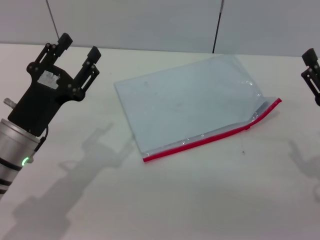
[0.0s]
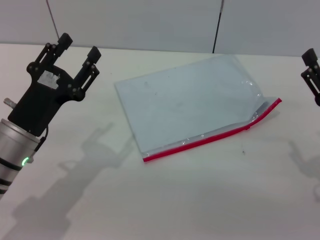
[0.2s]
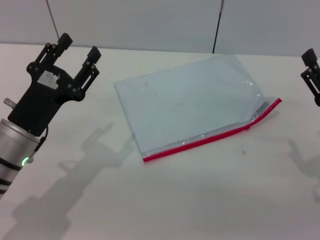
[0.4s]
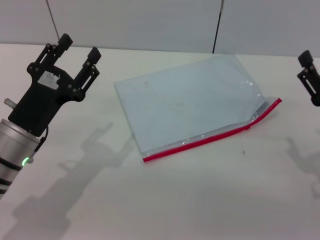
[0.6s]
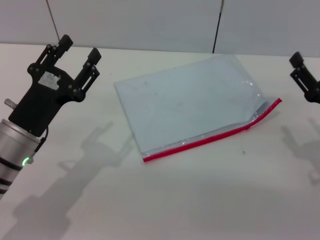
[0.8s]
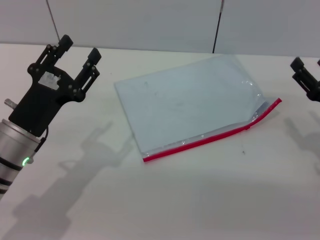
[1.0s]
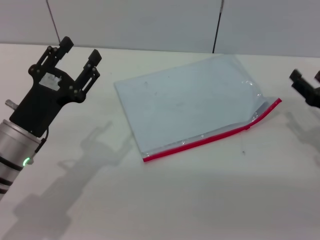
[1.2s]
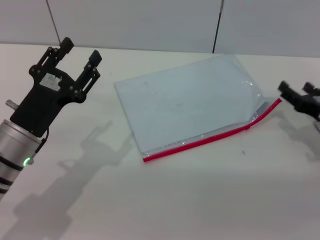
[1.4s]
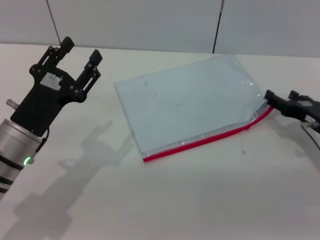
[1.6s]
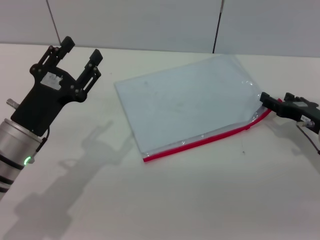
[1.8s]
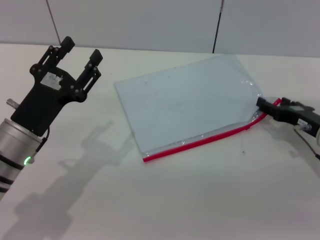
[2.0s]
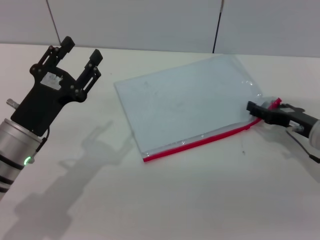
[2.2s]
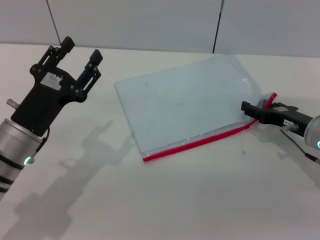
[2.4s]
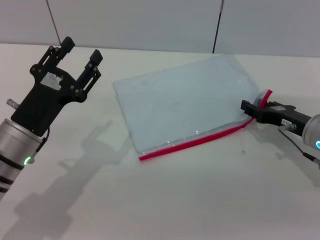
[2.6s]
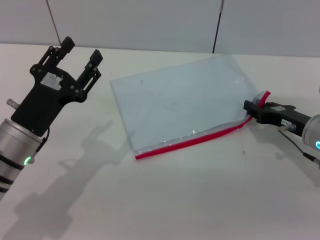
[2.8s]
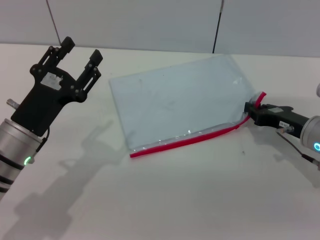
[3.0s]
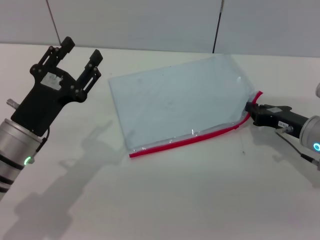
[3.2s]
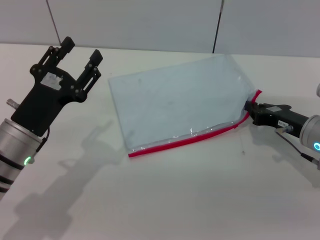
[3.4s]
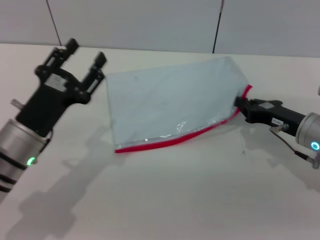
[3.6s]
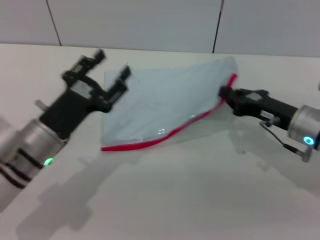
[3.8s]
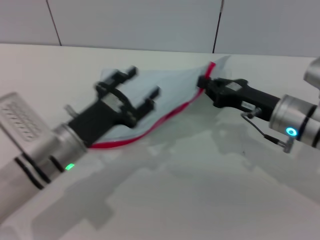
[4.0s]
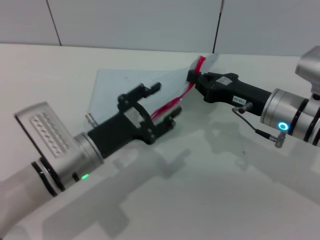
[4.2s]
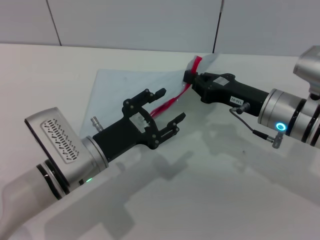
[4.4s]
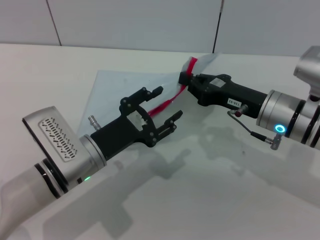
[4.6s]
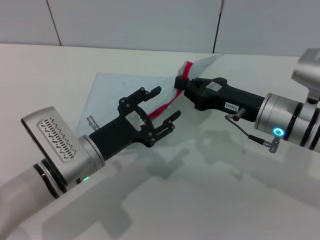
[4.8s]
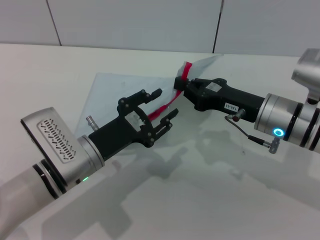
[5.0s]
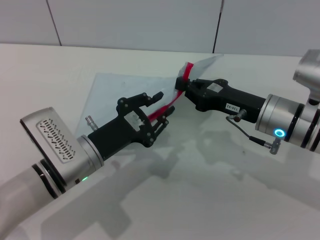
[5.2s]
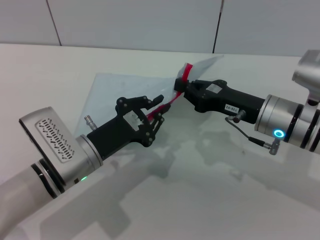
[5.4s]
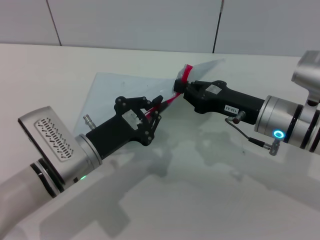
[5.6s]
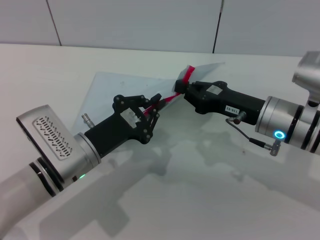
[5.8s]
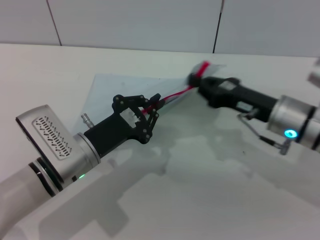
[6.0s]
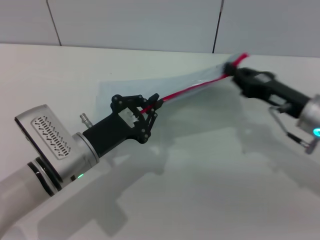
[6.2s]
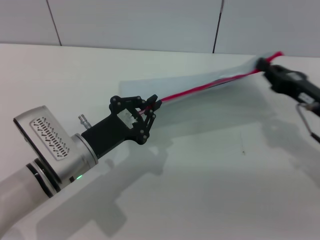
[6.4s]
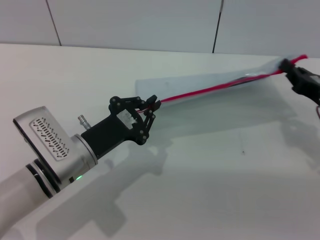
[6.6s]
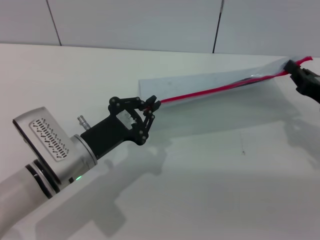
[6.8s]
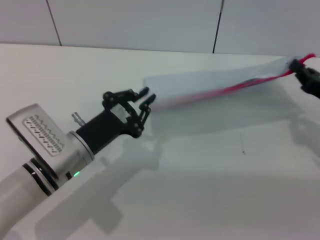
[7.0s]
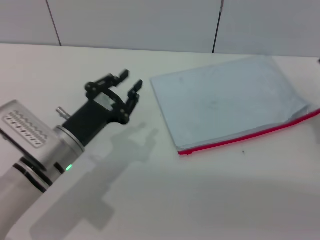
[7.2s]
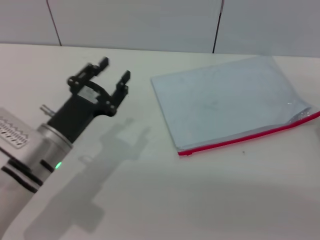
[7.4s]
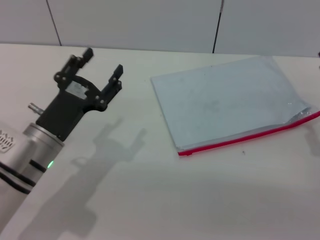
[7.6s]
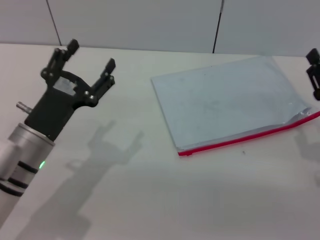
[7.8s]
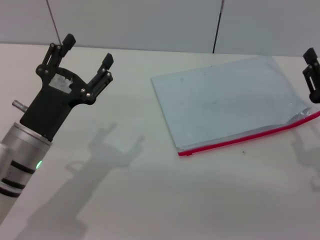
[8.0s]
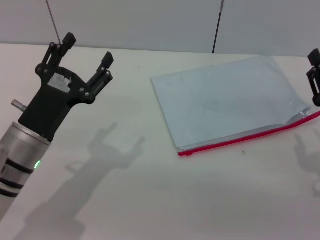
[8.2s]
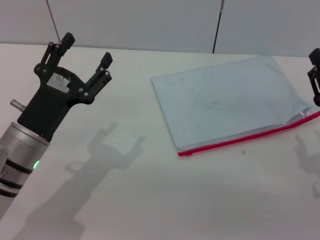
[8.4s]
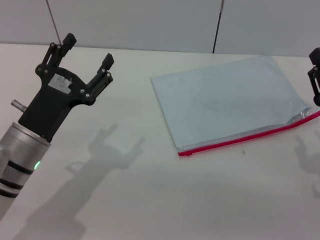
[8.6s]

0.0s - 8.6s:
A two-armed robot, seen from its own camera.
Step, 0.0s - 4.0s: Pick up the transparent plastic bag with the right gripper.
Step, 4.2s - 6.8s: Pulling up the zipper on the transparent plastic bag with the left gripper to close it.
Step, 7.2s - 7.6s: Place the transparent plastic bag.
0.0s - 1.4s: The right gripper travels forward by roughly 10 cm.
1.4s - 2.8s: The right gripper closes its fingers.
2.8s - 4.4s: The right gripper heads to the left, covering approximately 10 cm, and closes up; the left gripper moves to the right, approximately 5 cm.
4.4s - 5.8s: The left gripper closes.
5.8s - 7.2s: The right gripper travels to the right by some 15 cm.
7.2s - 8.6s: The right gripper heads to the left and backward, covering approximately 5 cm, and opens up; the left gripper opens.

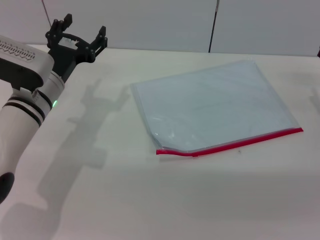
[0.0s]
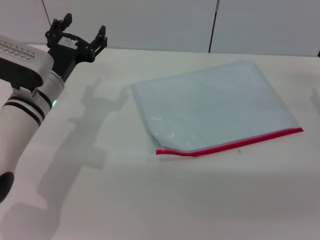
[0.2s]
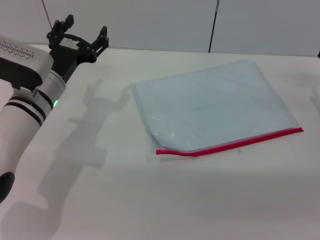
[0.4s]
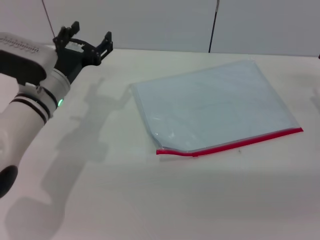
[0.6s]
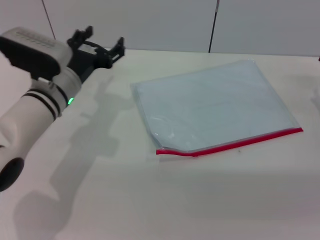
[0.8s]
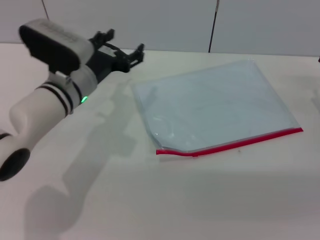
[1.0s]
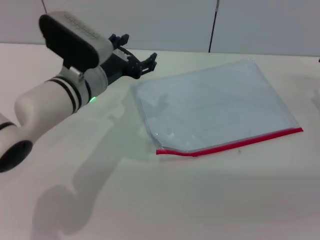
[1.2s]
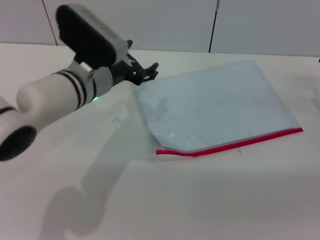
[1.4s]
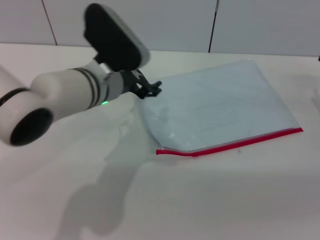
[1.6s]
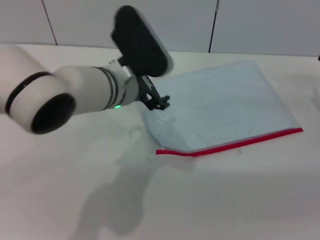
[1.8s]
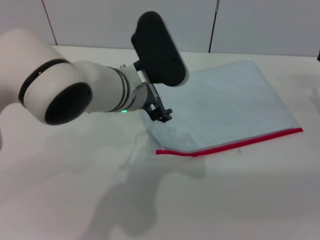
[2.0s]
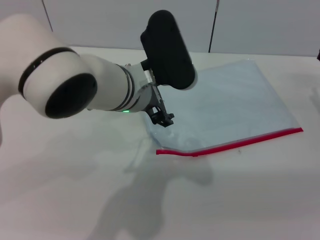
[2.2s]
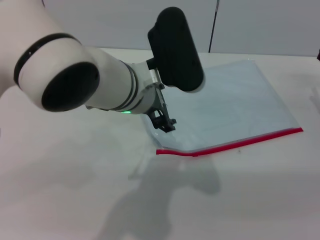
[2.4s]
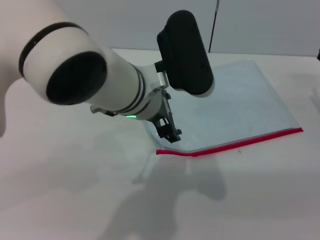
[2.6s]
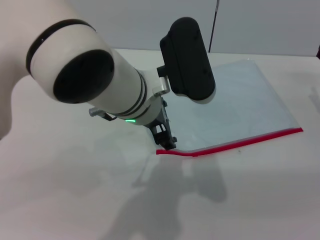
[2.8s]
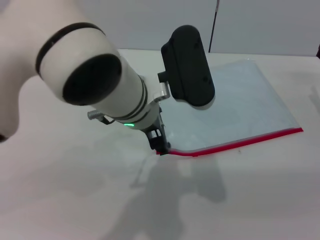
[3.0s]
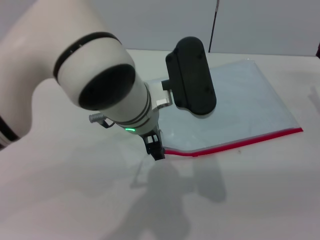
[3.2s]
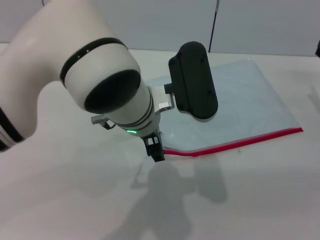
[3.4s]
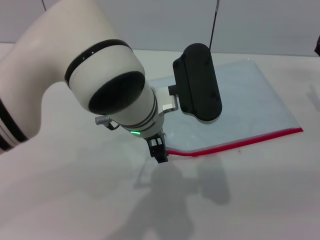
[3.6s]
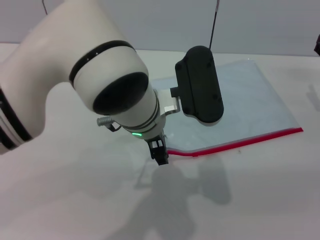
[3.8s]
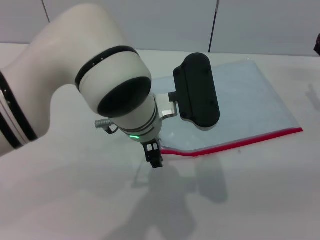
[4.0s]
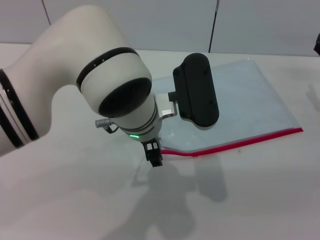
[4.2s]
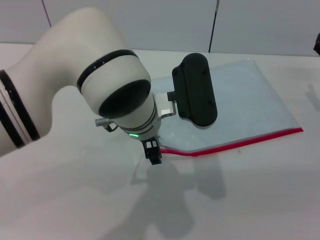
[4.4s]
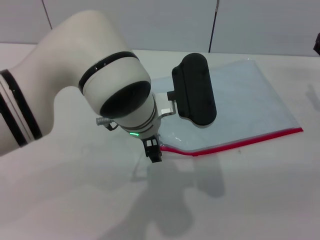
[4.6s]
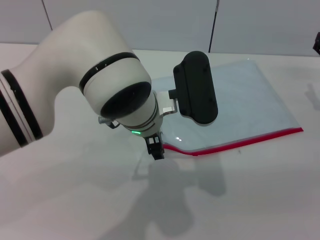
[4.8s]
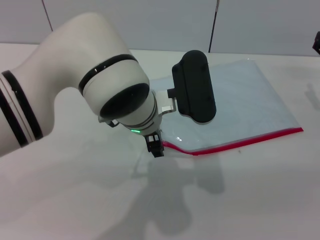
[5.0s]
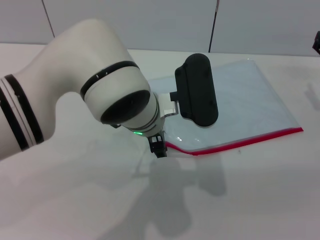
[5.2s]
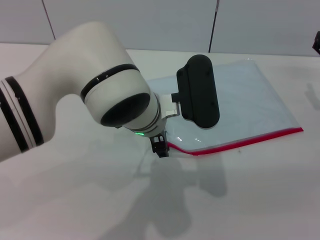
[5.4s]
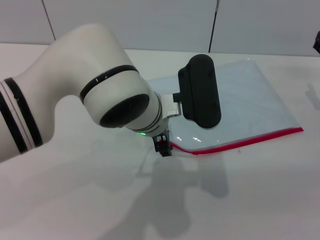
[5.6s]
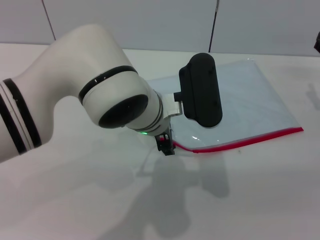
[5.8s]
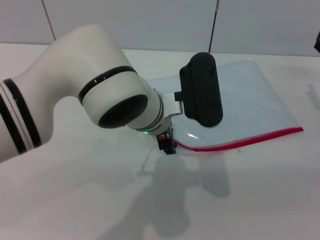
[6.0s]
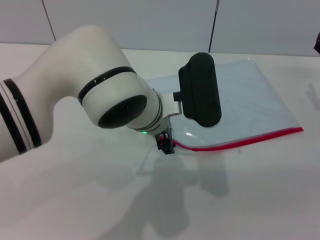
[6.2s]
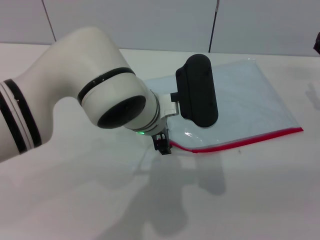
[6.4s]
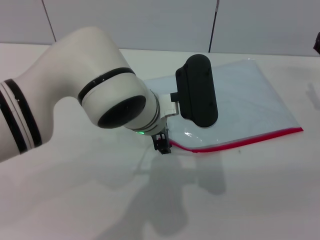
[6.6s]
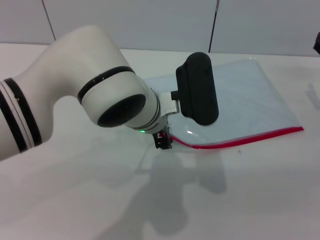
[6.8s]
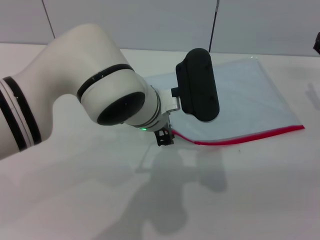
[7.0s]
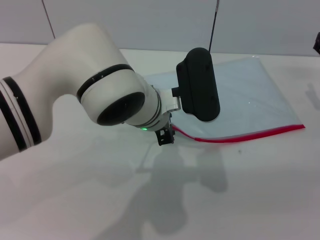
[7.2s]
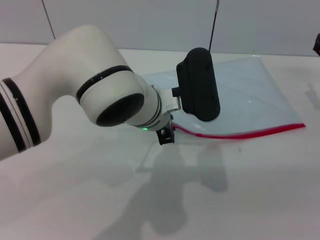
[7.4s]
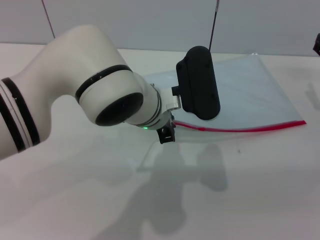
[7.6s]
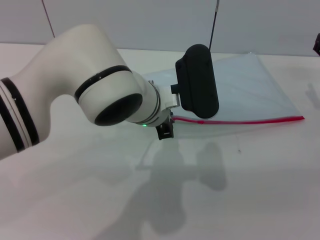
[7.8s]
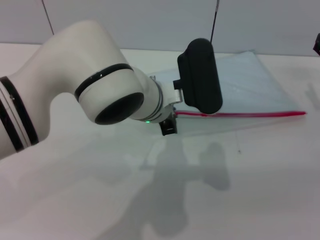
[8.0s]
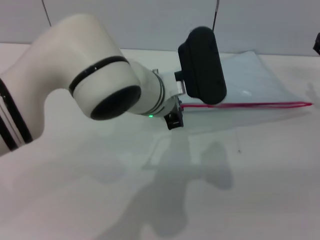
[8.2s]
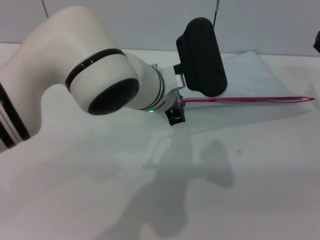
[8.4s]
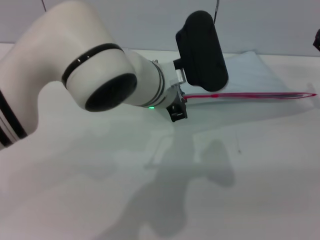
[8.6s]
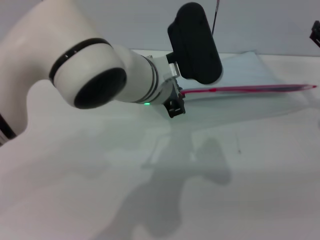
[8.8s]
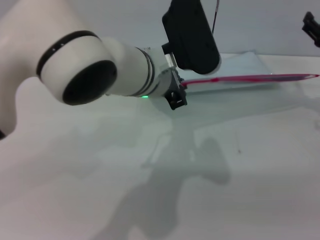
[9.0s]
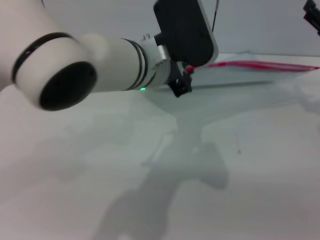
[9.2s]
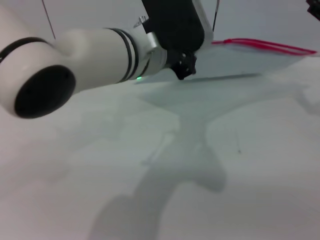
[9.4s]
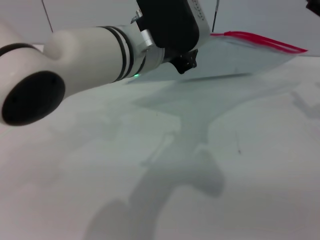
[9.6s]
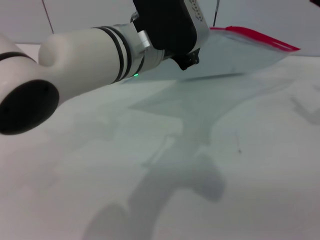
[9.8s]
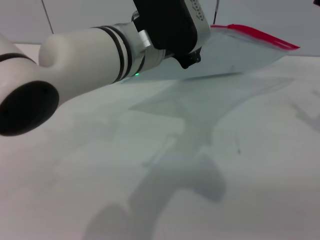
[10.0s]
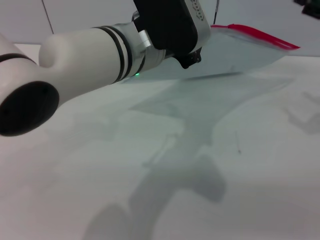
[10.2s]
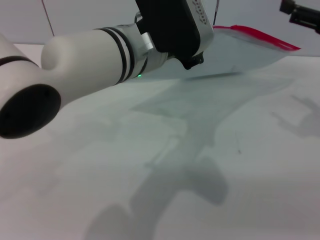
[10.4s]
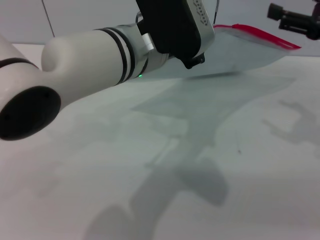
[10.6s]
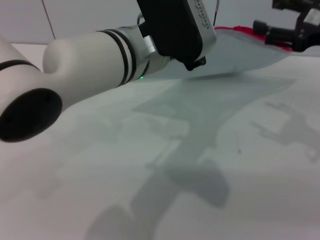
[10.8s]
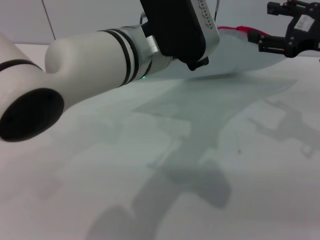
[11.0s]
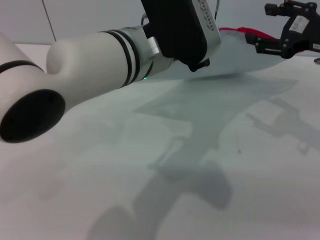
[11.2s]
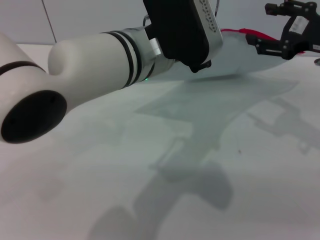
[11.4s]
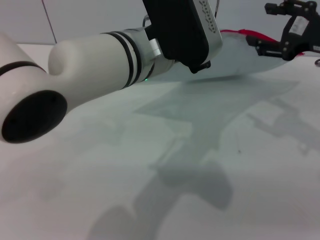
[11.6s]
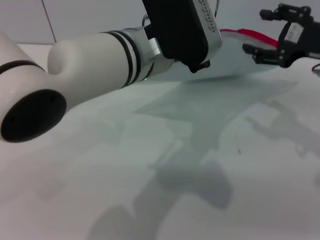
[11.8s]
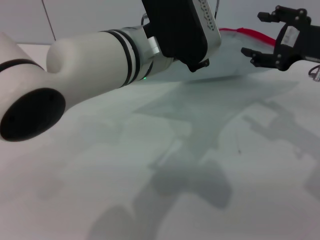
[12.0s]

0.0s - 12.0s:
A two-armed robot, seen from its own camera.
Step, 0.0s - 8.8s: Pick up the transparent plastic bag with the left gripper.
0.0s - 1.6s: The right gripper opens, while the left gripper shifts approximately 10 cm to the right and upward.
1.6s - 3.0s: The left gripper travels to the right by roughly 5 cm.
4.4s - 6.0s: The grippers make only small movements.
6.0s - 7.6s: The left gripper closes.
7.6s - 9.0s: The left gripper travels upward by some 5 cm.
9.0s - 10.4s: The right gripper travels upward by about 10 cm.
10.4s - 12.0s: The right gripper goes approximately 5 cm to the left.

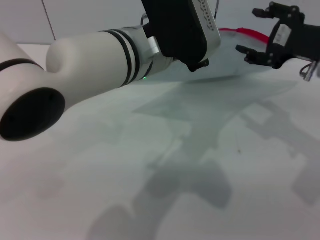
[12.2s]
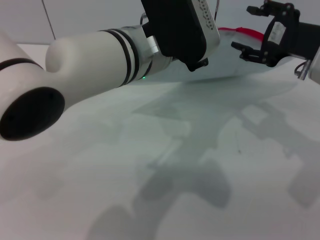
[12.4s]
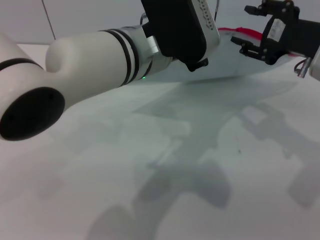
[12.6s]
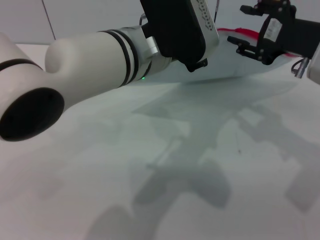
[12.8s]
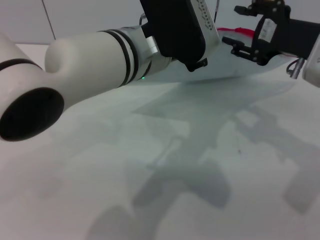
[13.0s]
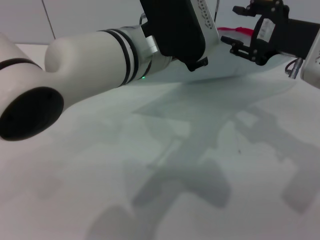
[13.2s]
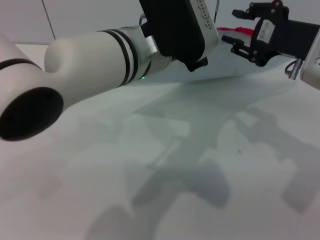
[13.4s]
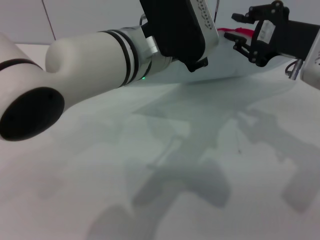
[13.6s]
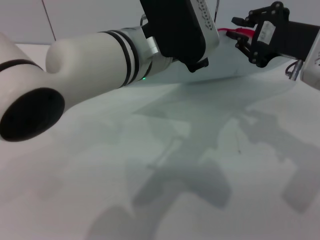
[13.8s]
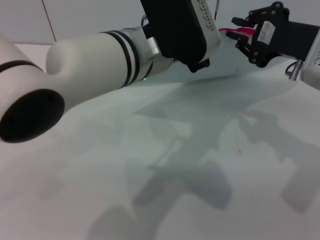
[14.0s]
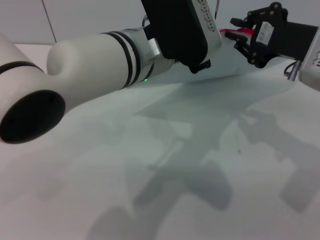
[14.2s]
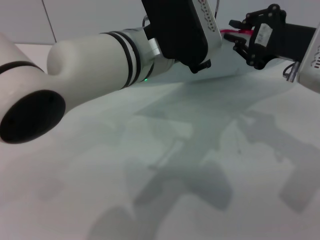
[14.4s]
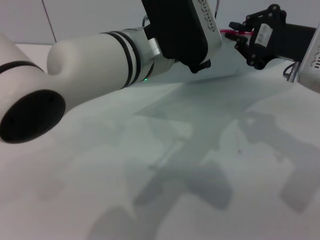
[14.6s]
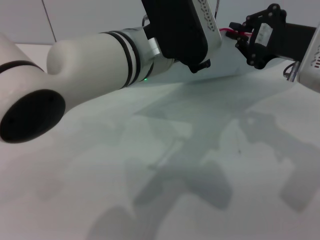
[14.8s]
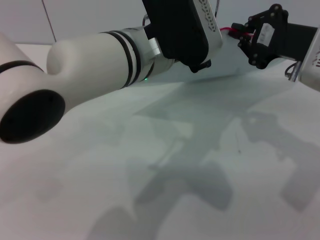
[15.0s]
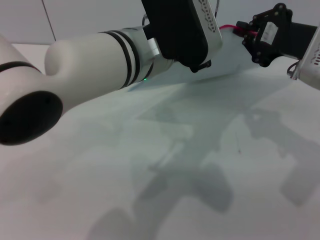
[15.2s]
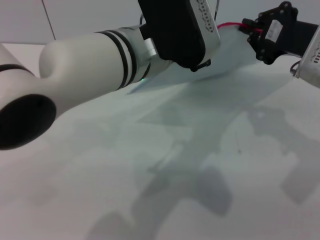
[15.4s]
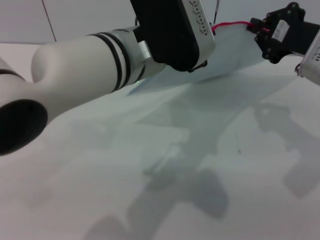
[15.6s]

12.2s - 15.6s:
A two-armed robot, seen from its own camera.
12.2s - 13.8s: The right gripper closes.
13.8s - 15.6s: The right gripper closes.
